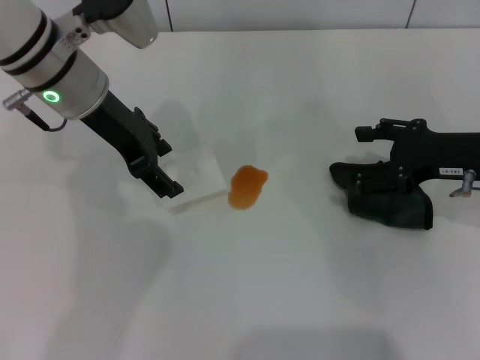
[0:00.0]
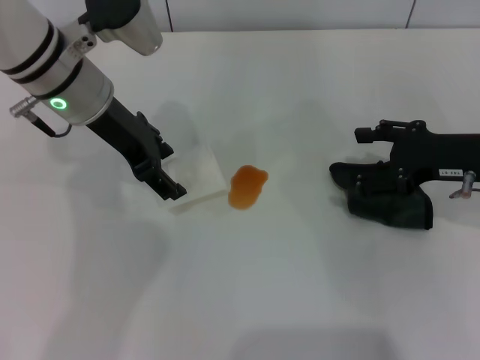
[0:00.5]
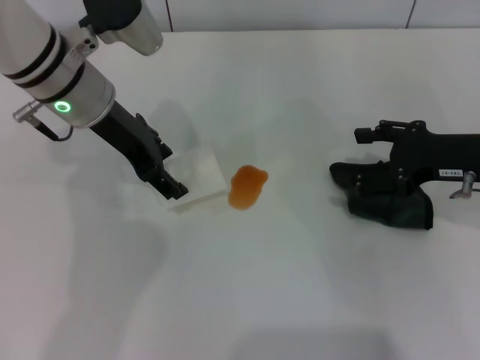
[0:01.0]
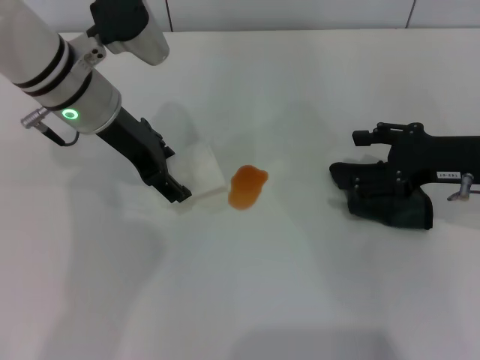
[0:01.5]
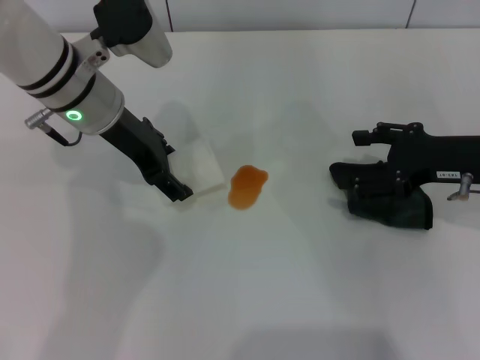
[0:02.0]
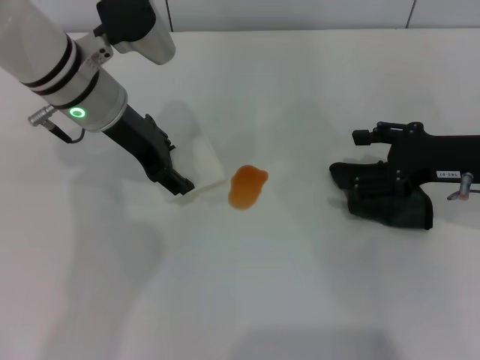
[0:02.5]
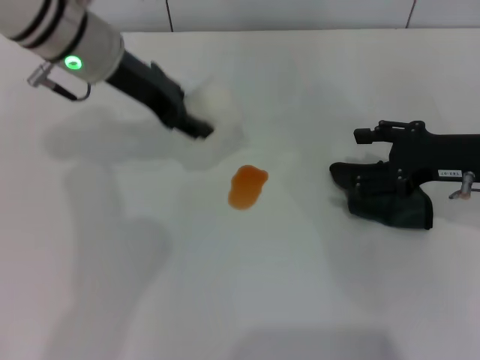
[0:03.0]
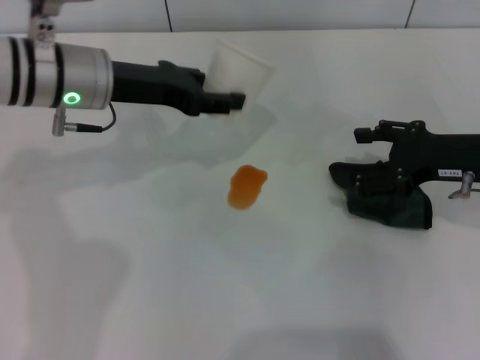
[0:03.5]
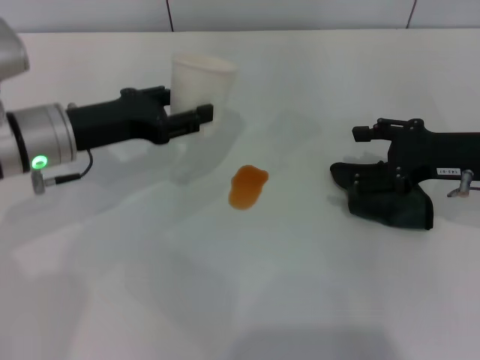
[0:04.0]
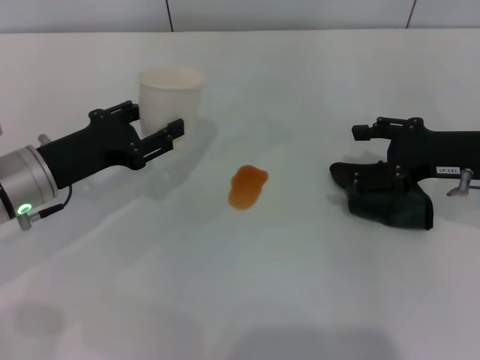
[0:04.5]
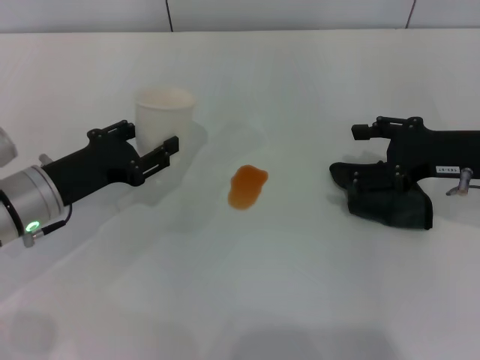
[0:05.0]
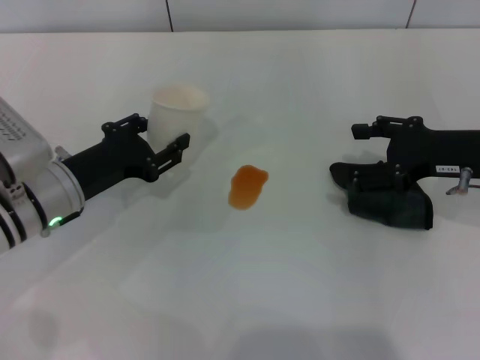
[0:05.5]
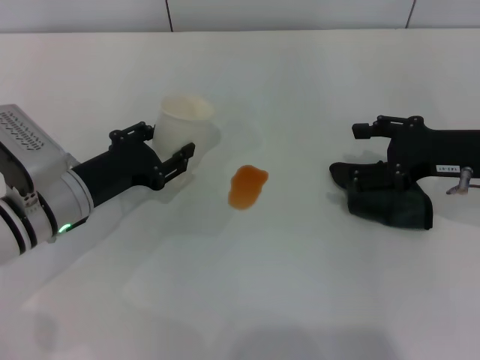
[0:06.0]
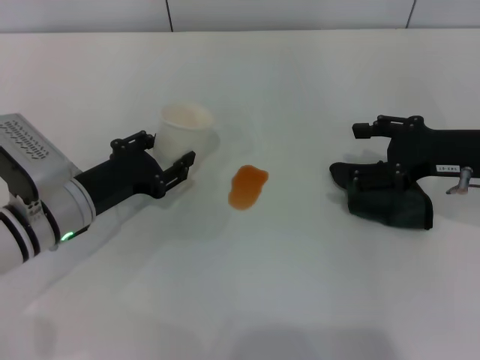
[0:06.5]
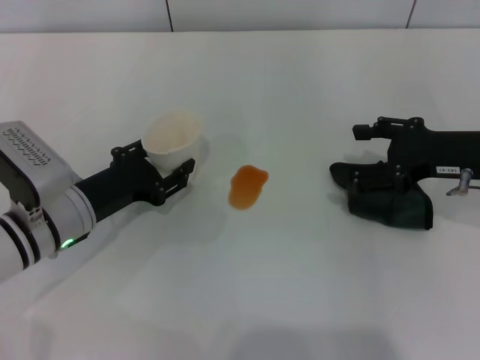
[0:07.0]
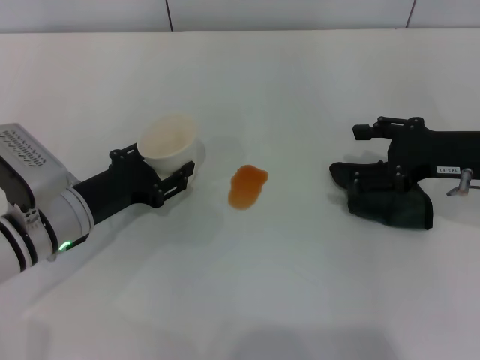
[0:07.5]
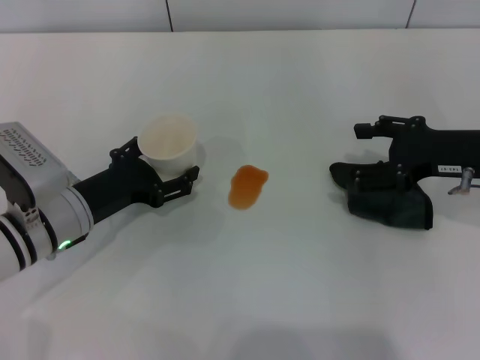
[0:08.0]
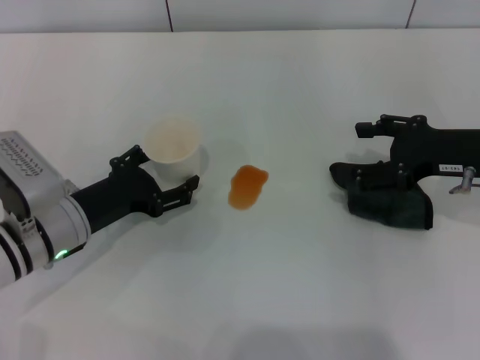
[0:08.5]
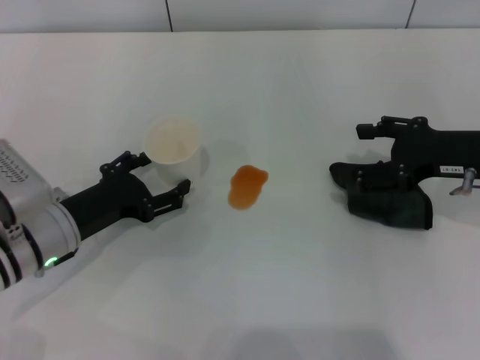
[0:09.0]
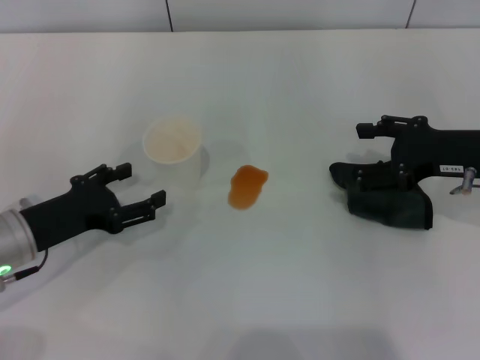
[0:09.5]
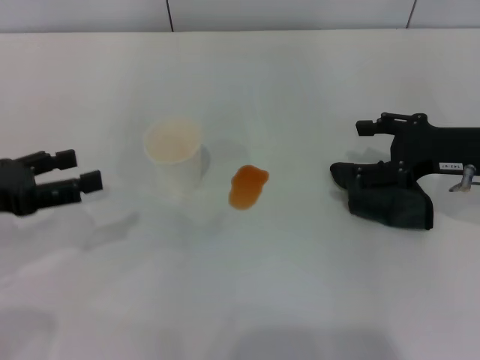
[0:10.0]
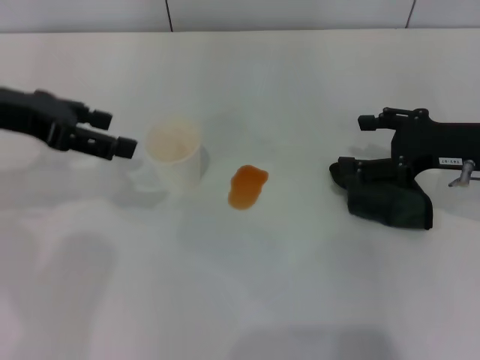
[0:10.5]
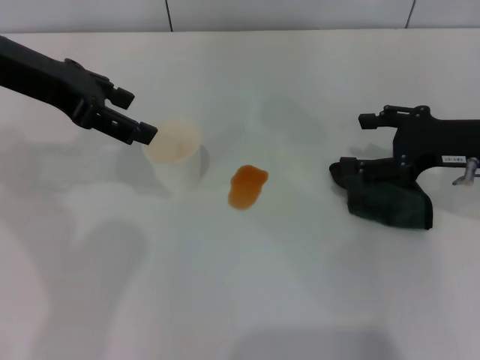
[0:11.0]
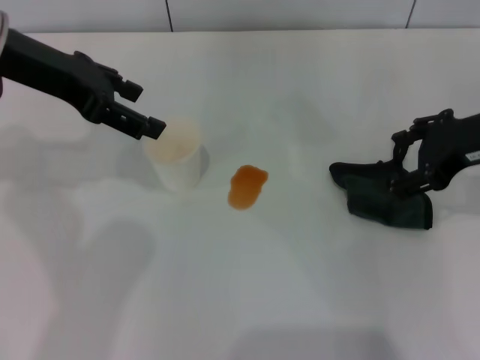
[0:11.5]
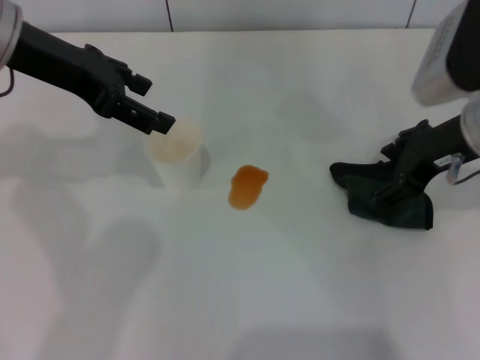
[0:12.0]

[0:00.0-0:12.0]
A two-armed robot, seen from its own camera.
Step, 0:00.0 to 0:02.0: Grasp the paper cup with the left gripper.
Step, 0:02.5 to 0:08.0: Stand the paper cup upright with the left gripper.
0:00.0 to 0:02.0: There are only small adjustments of the grippers.
0:02.0 to 0:04.0: The left gripper is displaced to the left and backward by approximately 10 cm, and closes up.
0:04.0 to 0:06.0: The left gripper shifts approximately 5 cm downward.
0:06.0 to 0:08.0: The left gripper opens up.
0:08.0 to 0:10.0: The left gripper moves to the left and upward, about 15 cm.
0:10.0 to 0:12.0: The left gripper heads forward, upward and to the right, covering some 20 cm; the right gripper heads upward and to the left, covering roughly 10 cm.

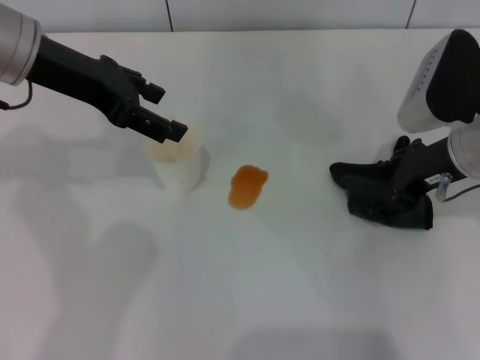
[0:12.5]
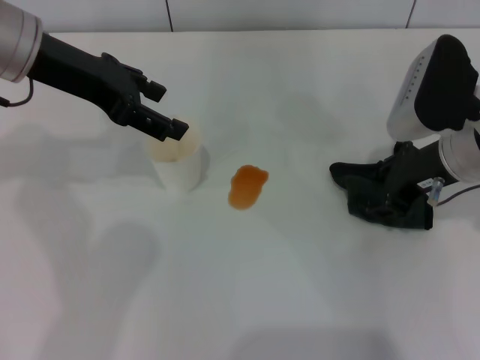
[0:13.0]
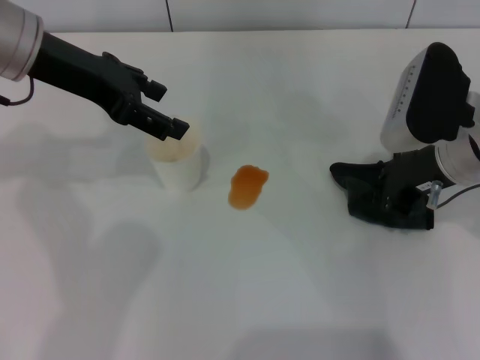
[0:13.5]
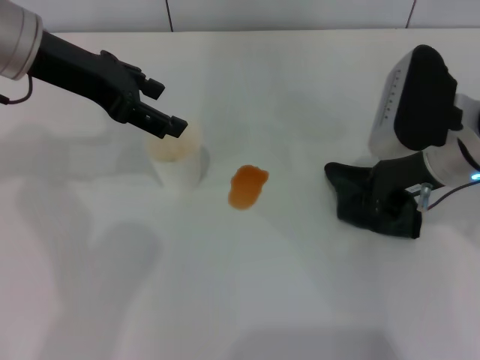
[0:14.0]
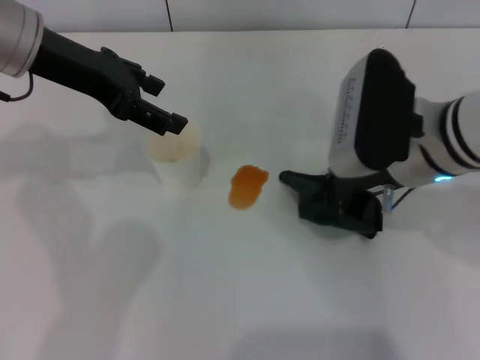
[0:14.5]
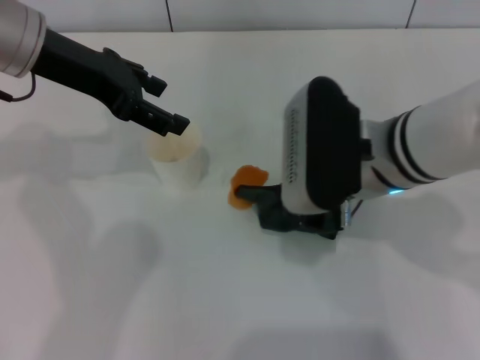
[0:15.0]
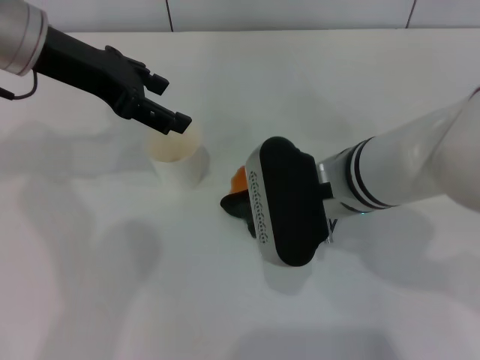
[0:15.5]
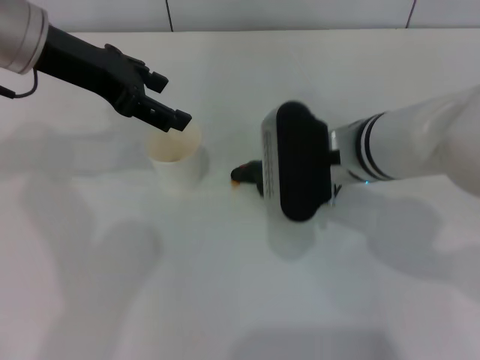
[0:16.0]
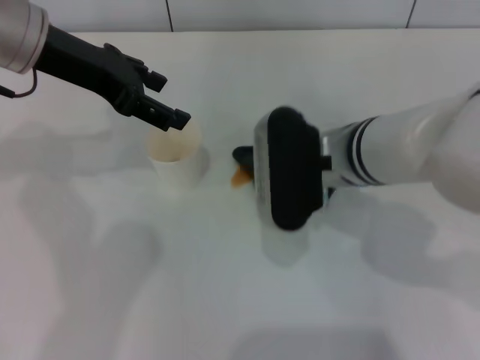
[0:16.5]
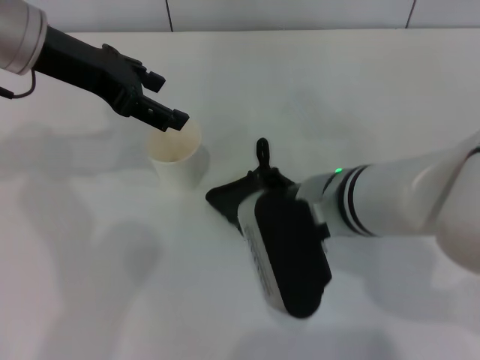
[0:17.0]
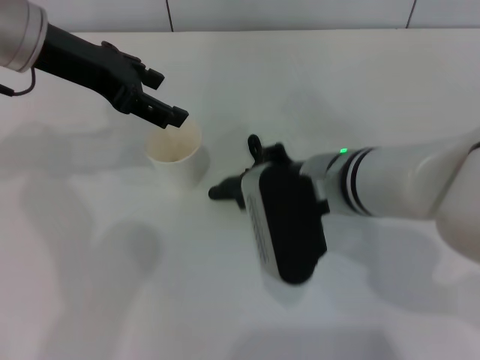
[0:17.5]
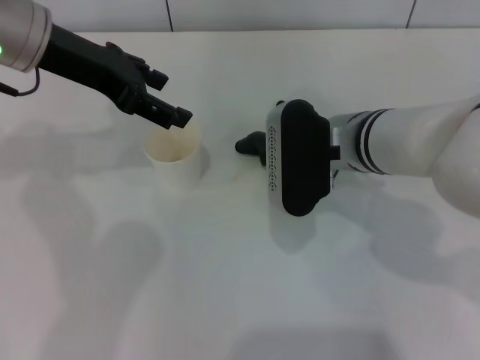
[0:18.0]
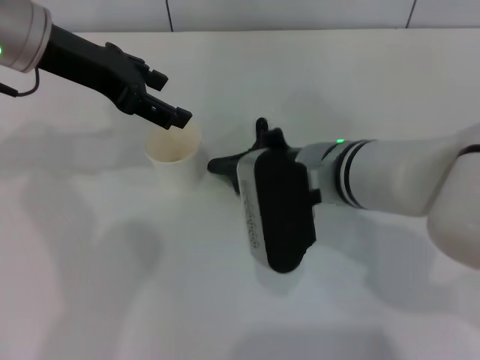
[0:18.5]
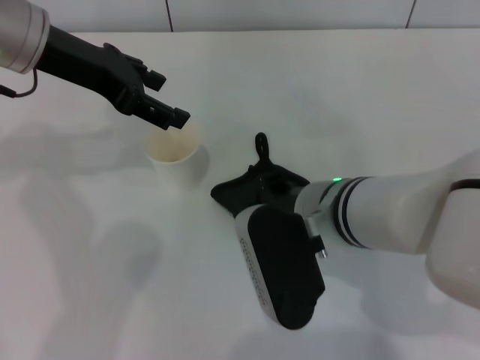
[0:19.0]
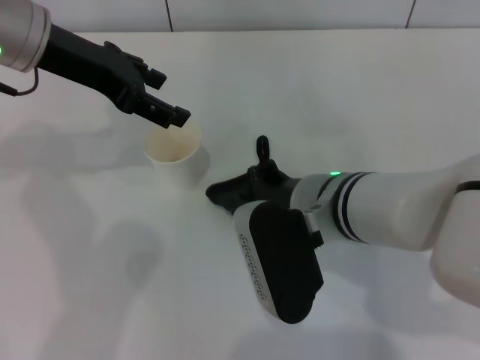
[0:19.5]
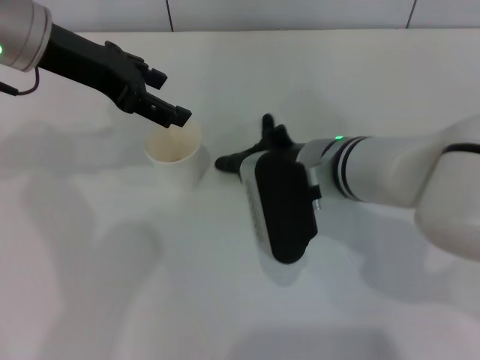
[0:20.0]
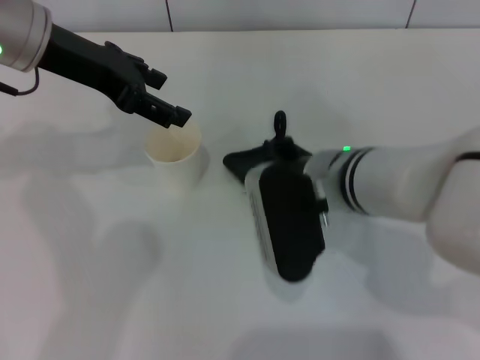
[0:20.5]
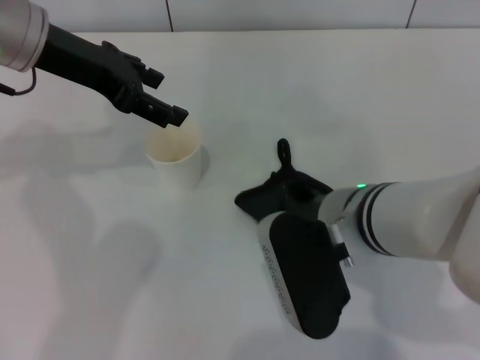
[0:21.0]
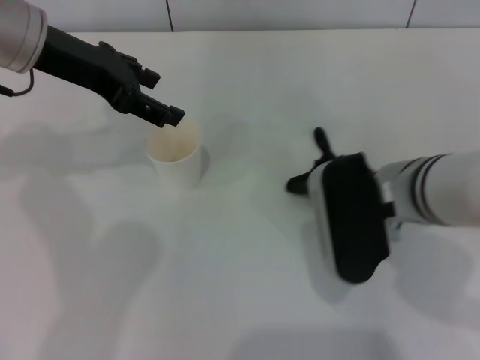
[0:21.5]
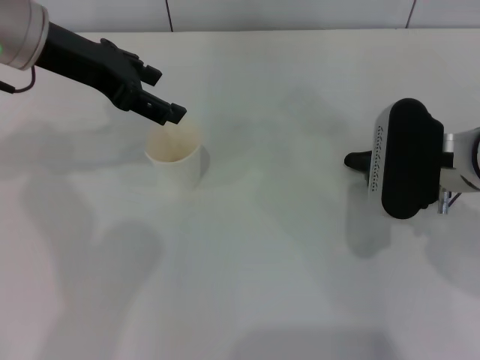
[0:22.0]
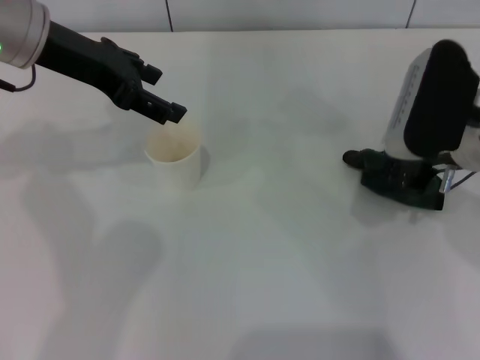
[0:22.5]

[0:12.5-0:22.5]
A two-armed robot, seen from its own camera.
Step, 0:14.0 to 0:22.5: Wipe the stains off the table with the right gripper.
0:12.5 to 0:14.5: The right gripper goes roughly 5 cm to the left, and closes up.
0:14.5 to 0:16.5: The right gripper goes about 5 cm to the left.
0:18.5 to 0:20.5: The grippers stay close to where they were, moving slightly.
0:20.5 to 0:22.5: The right gripper travels to the right by about 10 cm.

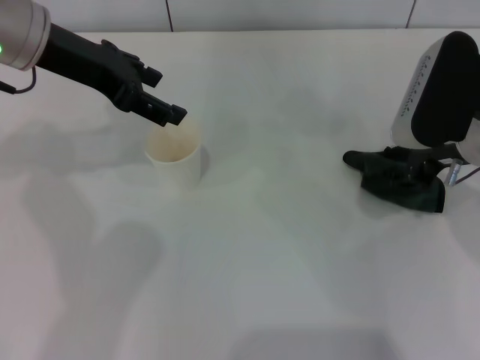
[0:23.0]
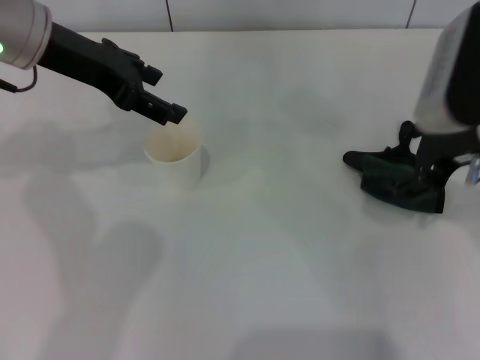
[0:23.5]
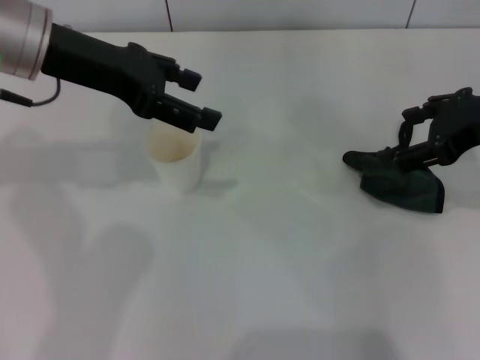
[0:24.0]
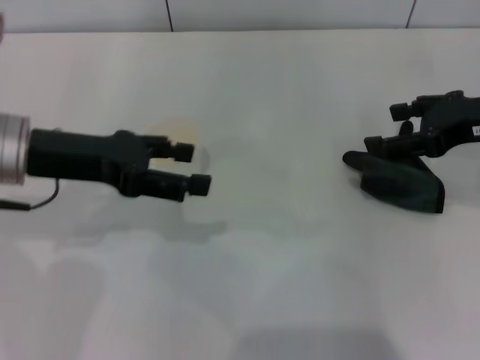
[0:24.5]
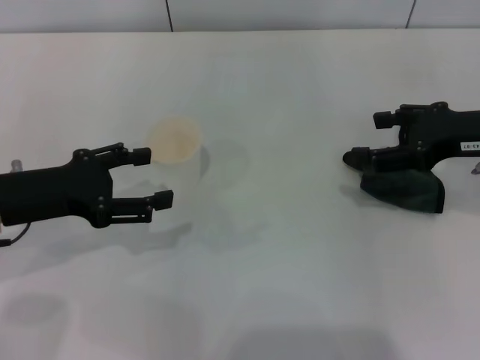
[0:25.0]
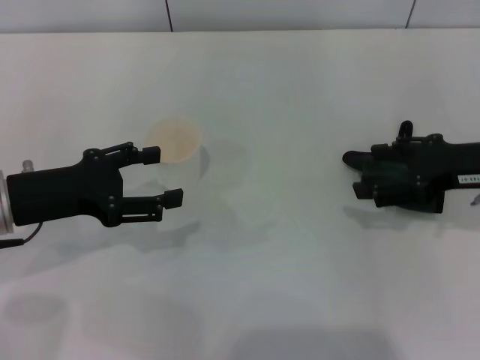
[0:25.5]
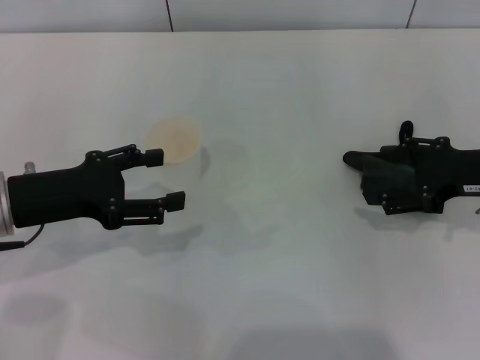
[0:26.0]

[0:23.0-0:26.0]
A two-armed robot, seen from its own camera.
Step, 0:23.0 to 0:23.5: Place the rag on the table with the right gripper.
0:23.0 to 0:24.5: The right gripper travels to the right by some 5 cm, and opens its fingers. The left gripper is displaced backward and downward by some 10 cm.
0:24.5 to 0:26.0: The left gripper ends up approximately 5 cm from where it was. The right gripper travels downward by about 5 cm.
